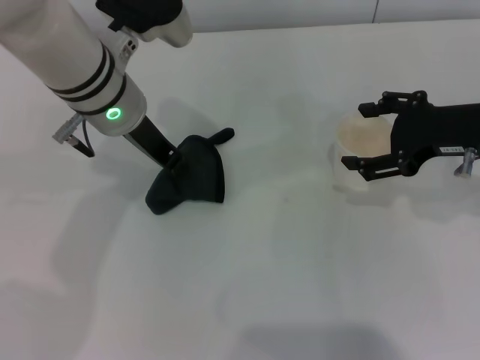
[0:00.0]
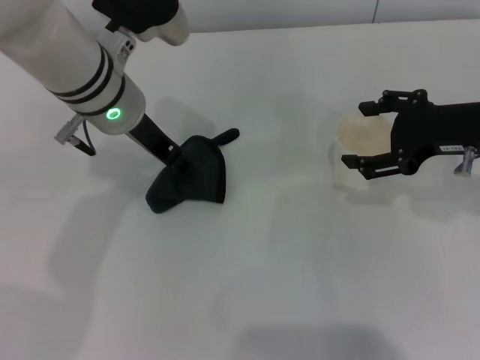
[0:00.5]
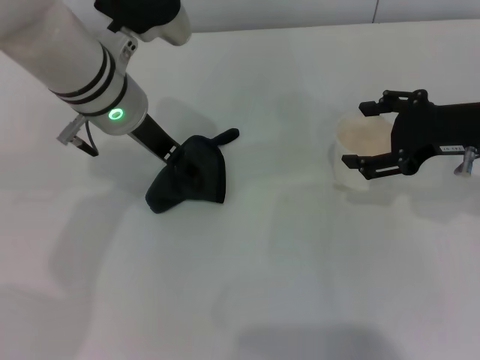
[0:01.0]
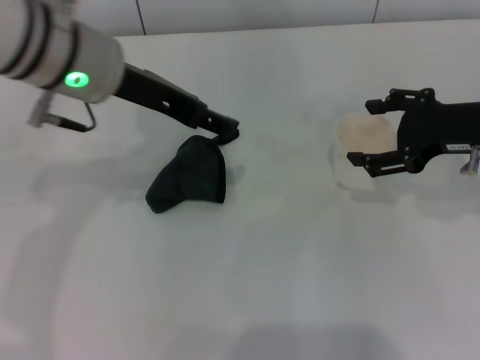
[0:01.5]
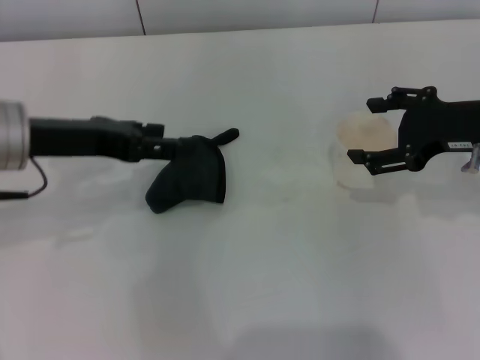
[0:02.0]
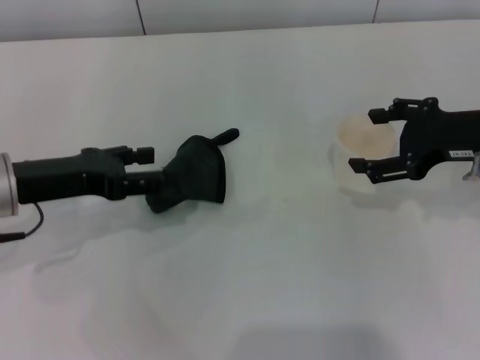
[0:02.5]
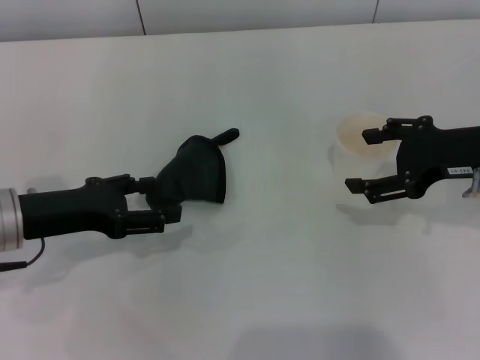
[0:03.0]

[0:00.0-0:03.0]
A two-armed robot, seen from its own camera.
Step, 0:00.0 to 0:01.5: Place the rag on the table with the left gripper.
0:00.0 to 0:01.5: The left gripper goes some 5 cm upward, and opens.
0:01.5 to 0:03.0: The left gripper heads downward, to the left and backward, covering roughly 20 cm.

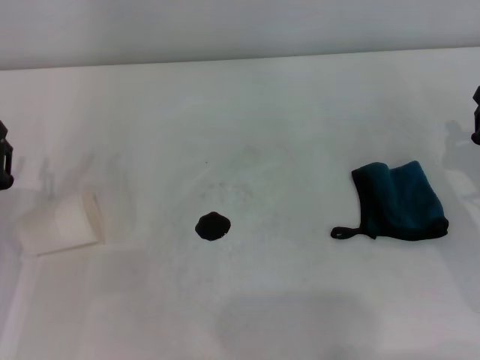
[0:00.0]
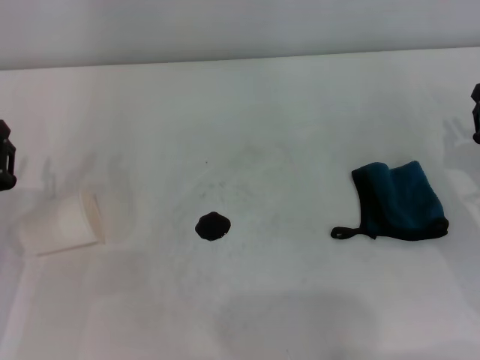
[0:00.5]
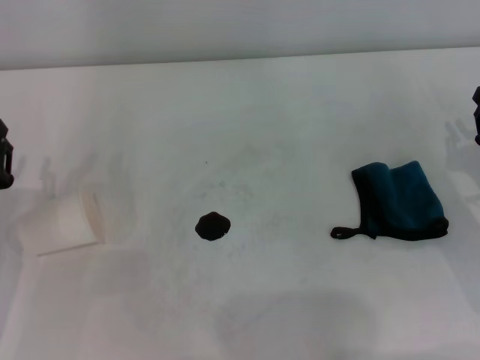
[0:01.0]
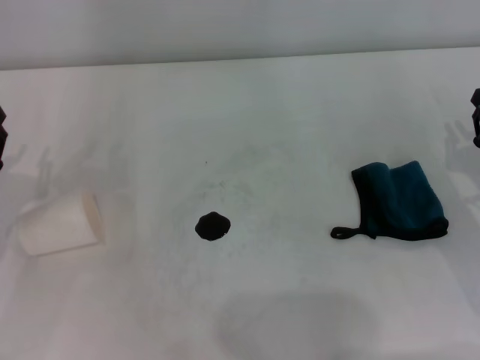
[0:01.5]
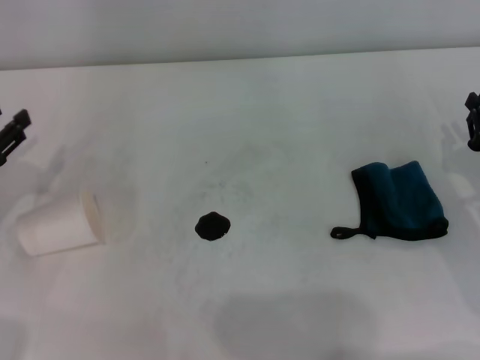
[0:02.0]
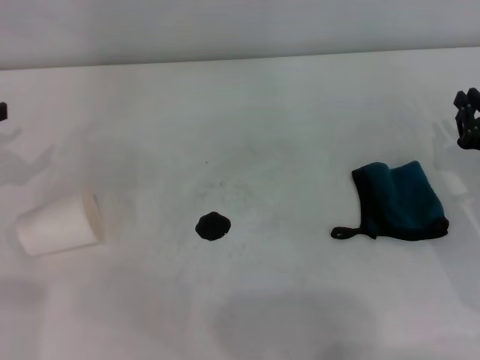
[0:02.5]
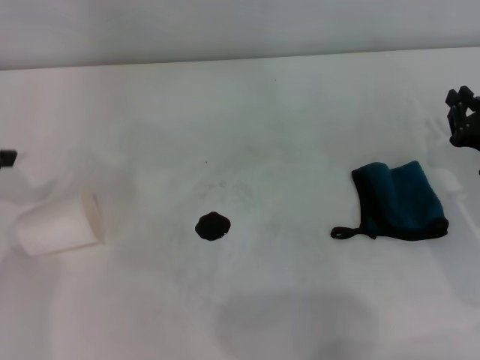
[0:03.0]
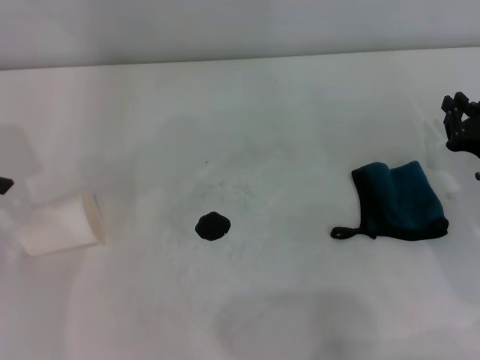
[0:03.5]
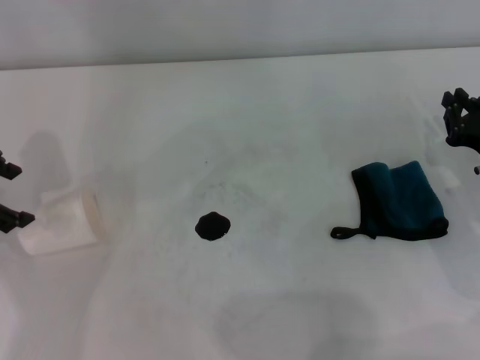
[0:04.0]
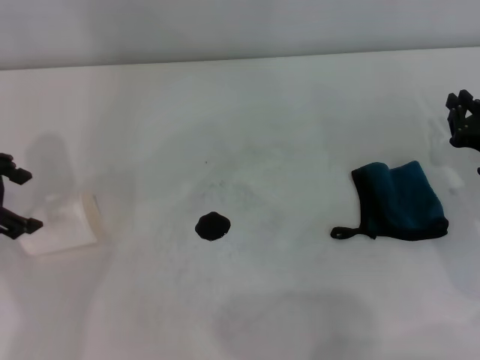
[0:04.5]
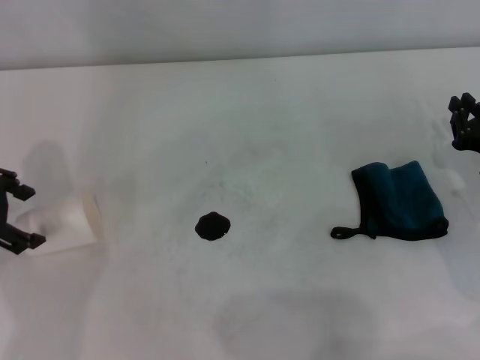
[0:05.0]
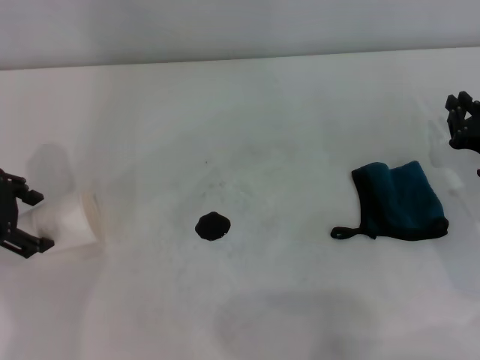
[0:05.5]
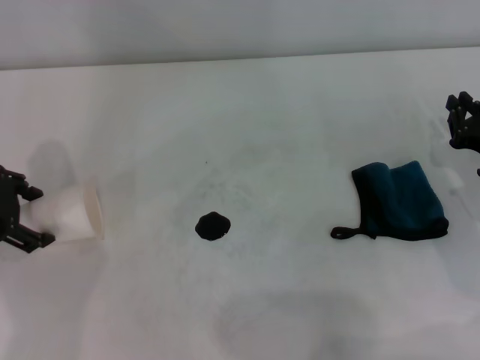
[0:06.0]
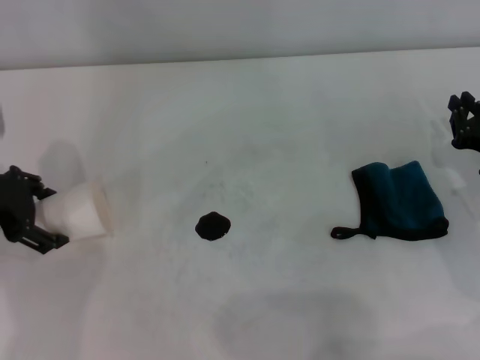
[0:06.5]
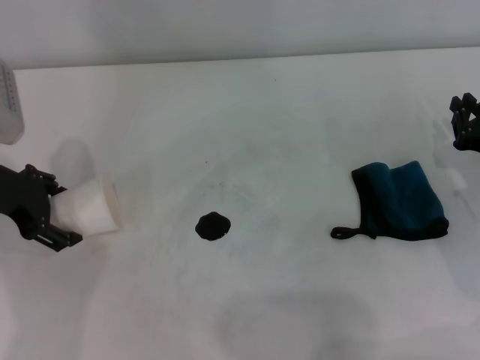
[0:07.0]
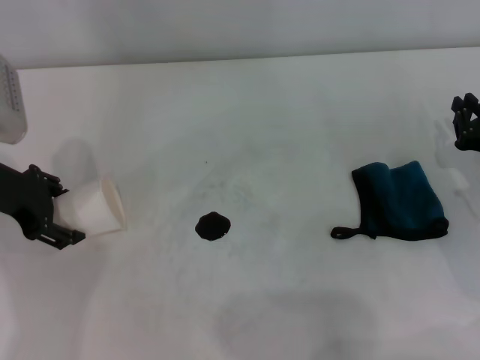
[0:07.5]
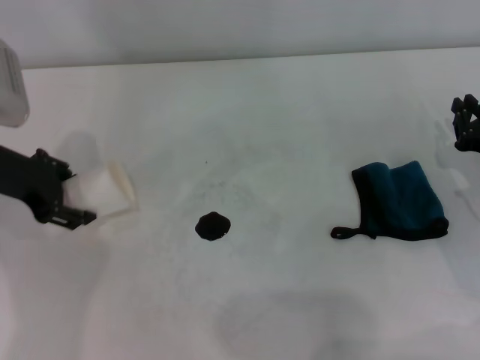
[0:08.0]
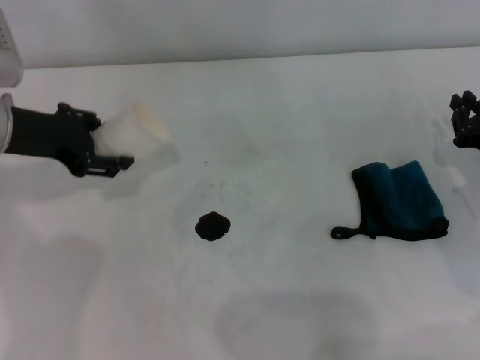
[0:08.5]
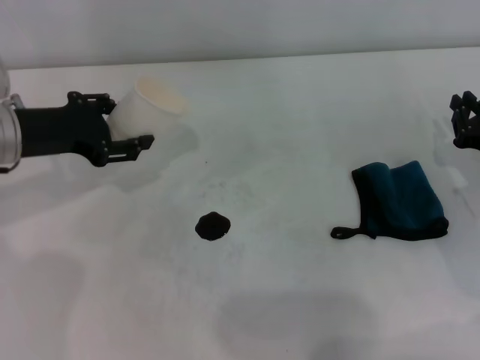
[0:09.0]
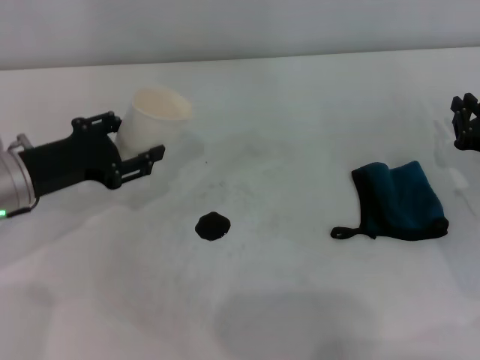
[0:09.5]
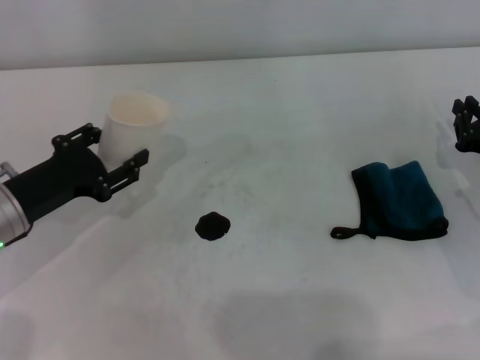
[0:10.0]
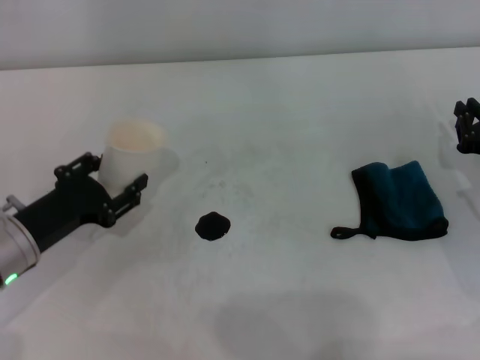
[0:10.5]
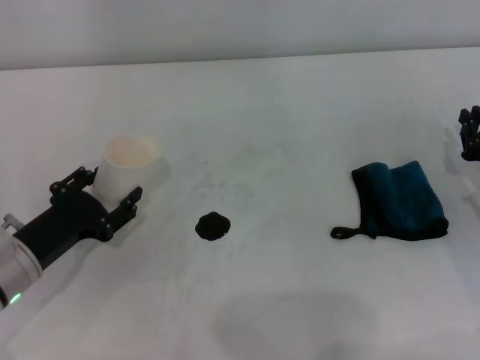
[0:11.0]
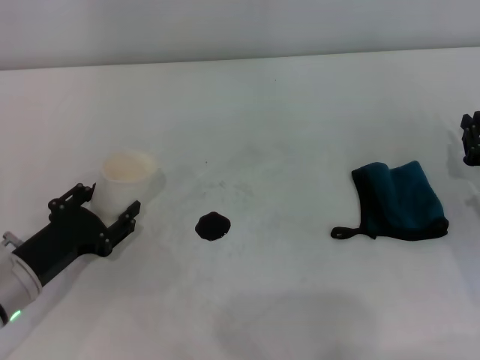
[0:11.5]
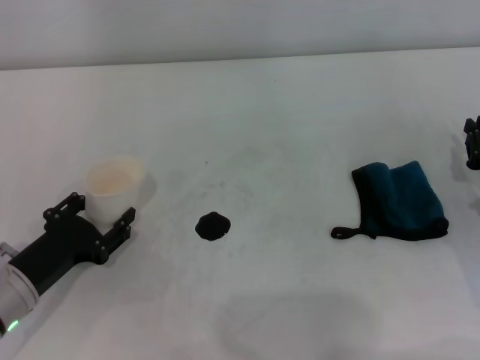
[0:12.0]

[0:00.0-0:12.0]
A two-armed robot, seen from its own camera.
Step, 0:00.0 to 0:07.5: Grasp the paper cup with the left gripper.
0:00.0 to 0:02.0: The left gripper shifts some 10 cm forward and to the left.
0:02.0 to 0:04.0: The left gripper moves upward and forward, roughly 10 cm, and opens.
0:04.0 to 0:06.0: The grippers move only a little.
0:06.0 to 0:08.0: The grippers make only small movements.
0:08.0 to 0:10.0: The left gripper shifts about 10 cm downward and backward.
0:10.0 to 0:12.0: The left gripper goes roughly 10 cm backward and downward.

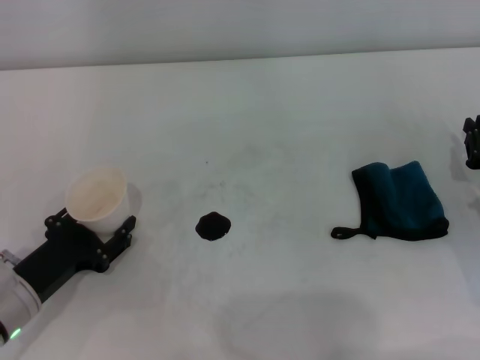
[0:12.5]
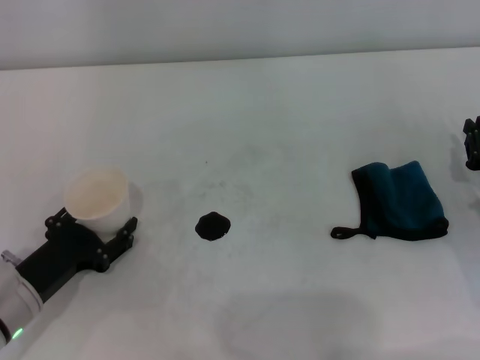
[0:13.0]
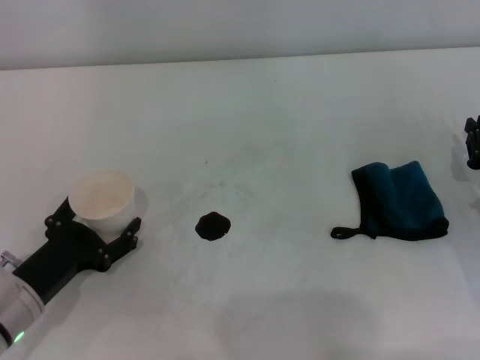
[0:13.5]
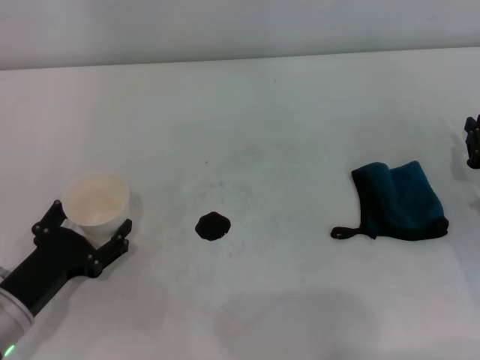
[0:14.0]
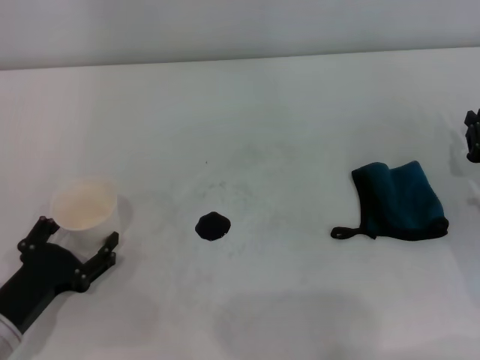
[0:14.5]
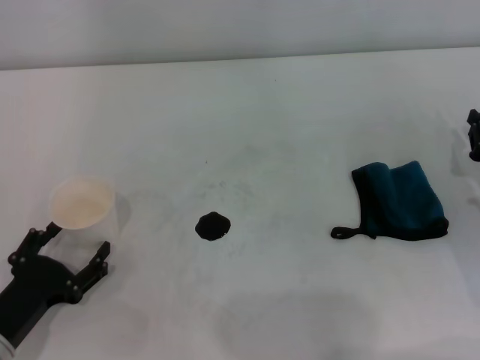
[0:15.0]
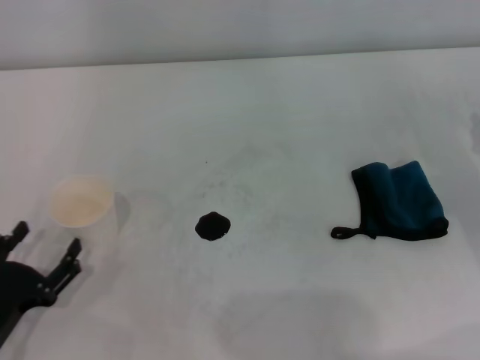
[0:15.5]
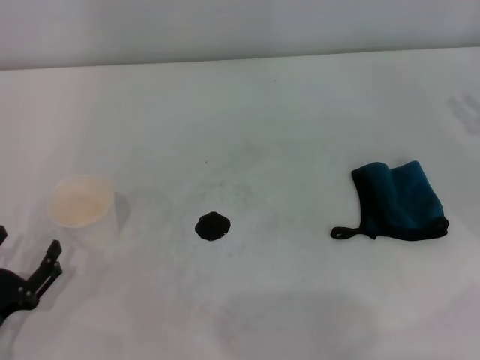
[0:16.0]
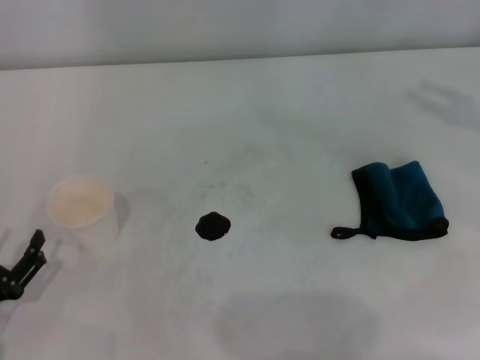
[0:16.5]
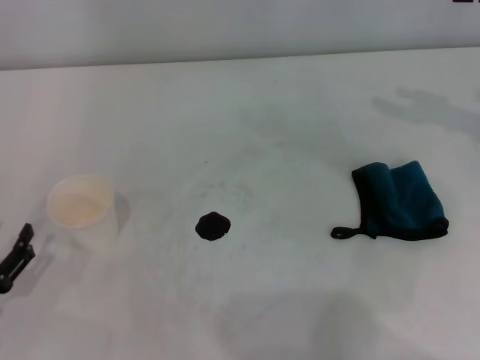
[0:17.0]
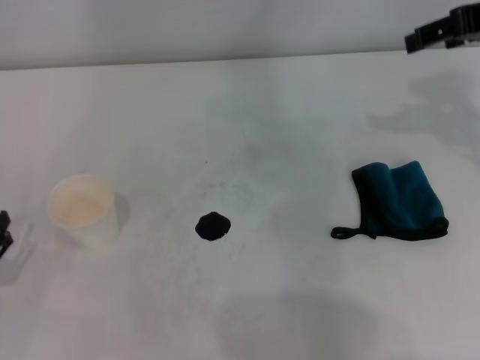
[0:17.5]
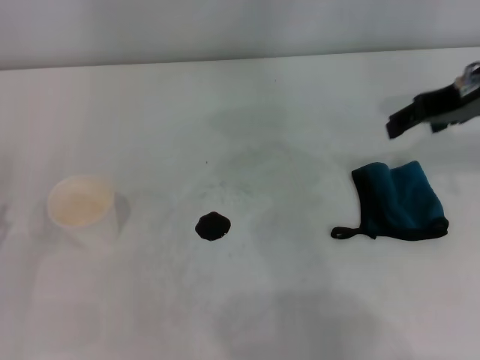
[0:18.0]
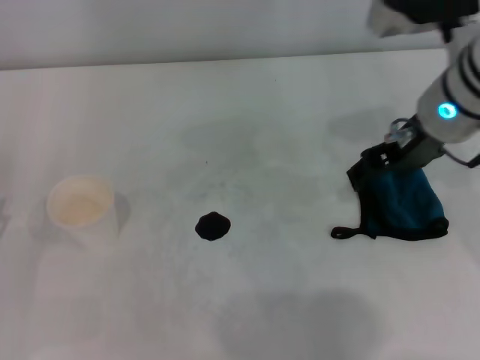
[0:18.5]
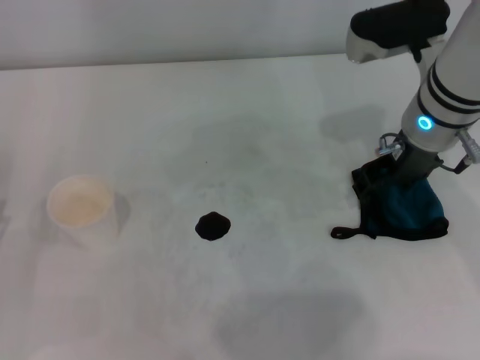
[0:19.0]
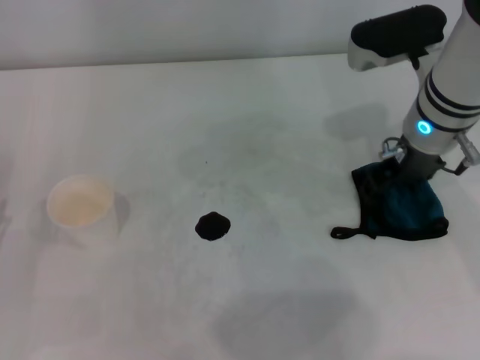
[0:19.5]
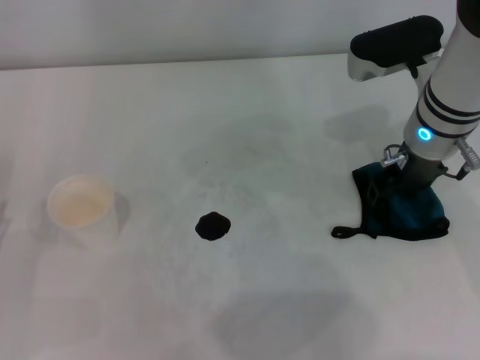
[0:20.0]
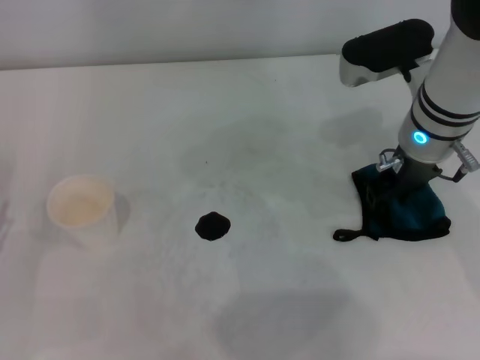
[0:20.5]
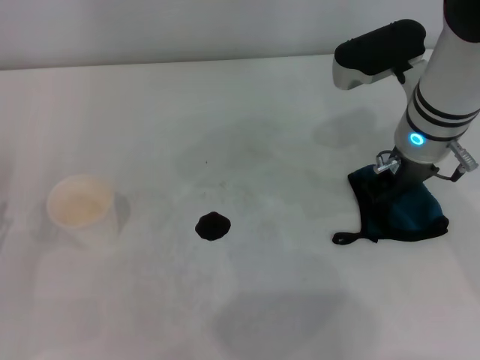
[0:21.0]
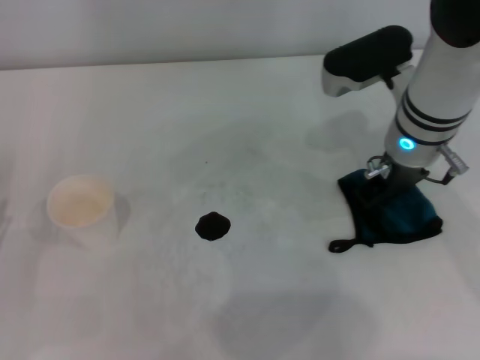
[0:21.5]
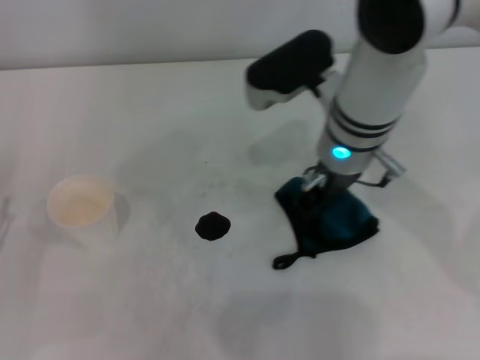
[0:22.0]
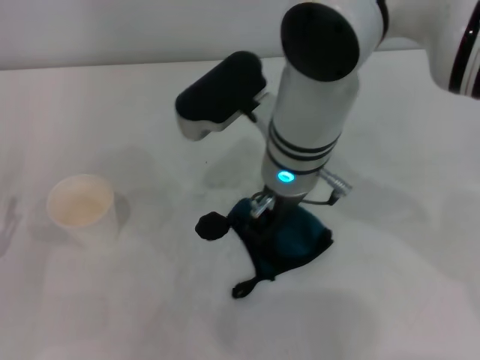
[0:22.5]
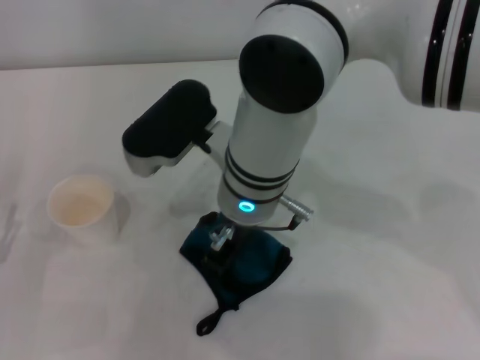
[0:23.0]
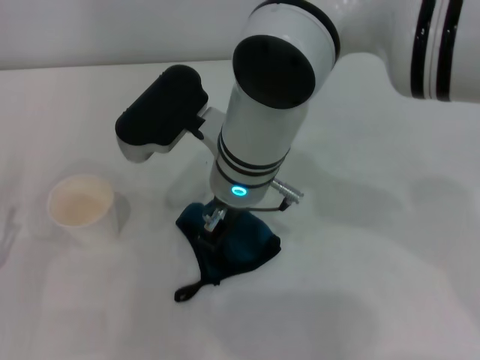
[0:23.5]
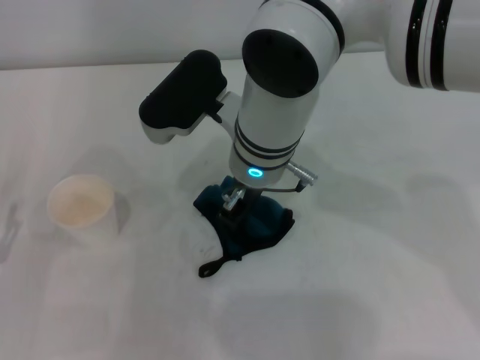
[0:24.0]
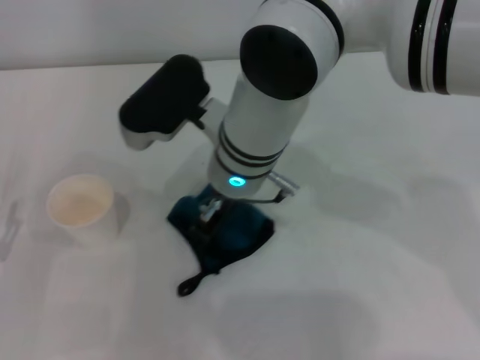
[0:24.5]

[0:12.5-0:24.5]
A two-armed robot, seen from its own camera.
Step, 0:13.5 to 0:21.0: Grasp the rag with the right gripper.
0:12.5 to 0:14.5: The left gripper opens.
0:14.5 to 0:16.5: The left gripper moves some 5 cm. Meanwhile the right gripper travels upward by about 20 cm, and opens its fingers.
0:16.5 to 0:18.5: The right gripper is displaced to the left by about 20 cm.
0:18.5 to 0:20.5: The right gripper moves downward, roughly 5 cm, and closes its fingers.
0:20.5 to 0:22.5: The right gripper shifts roughly 15 cm to the left, and closes.
